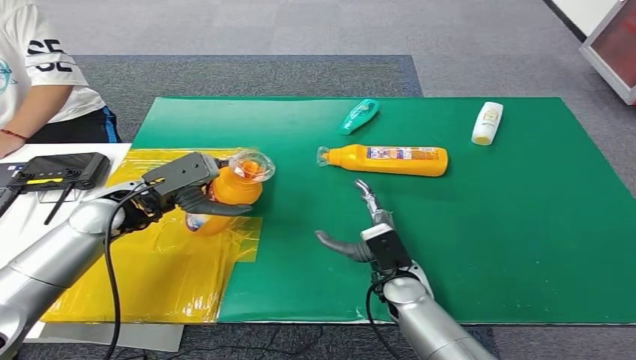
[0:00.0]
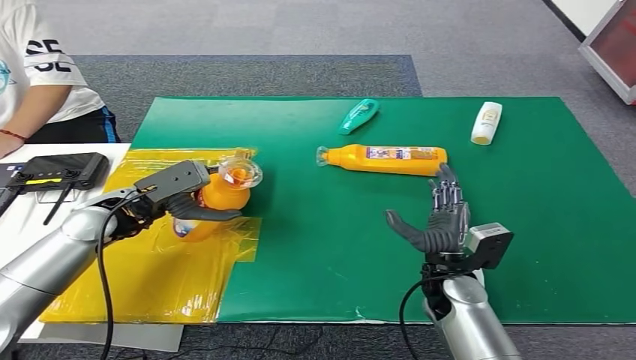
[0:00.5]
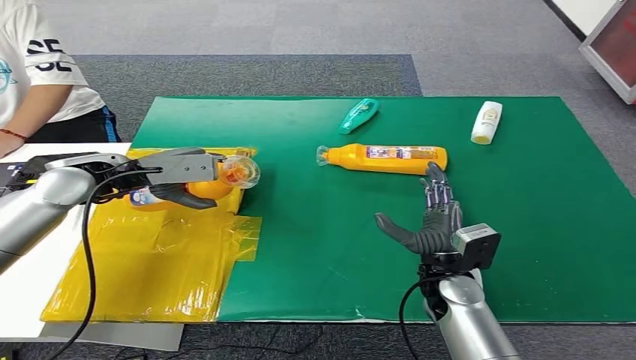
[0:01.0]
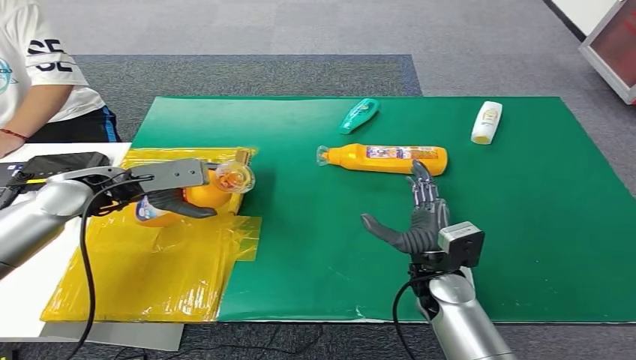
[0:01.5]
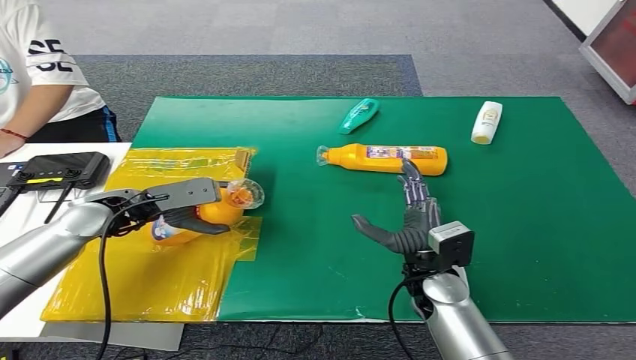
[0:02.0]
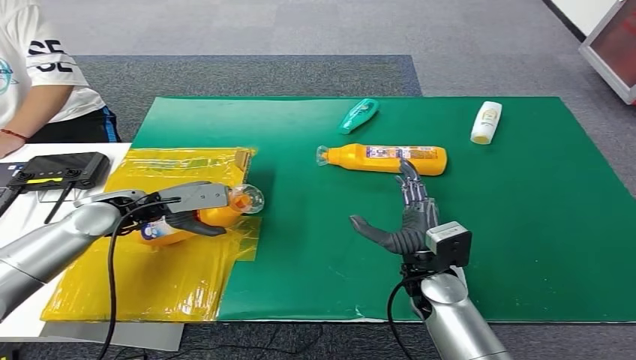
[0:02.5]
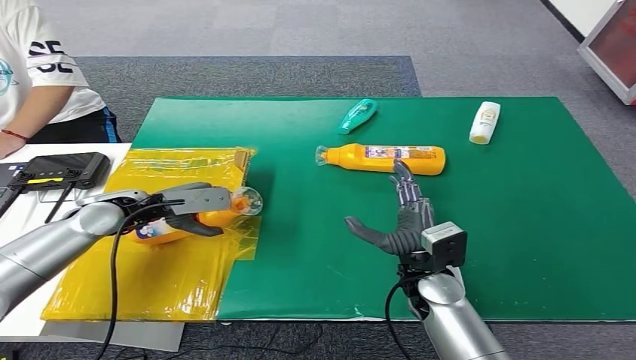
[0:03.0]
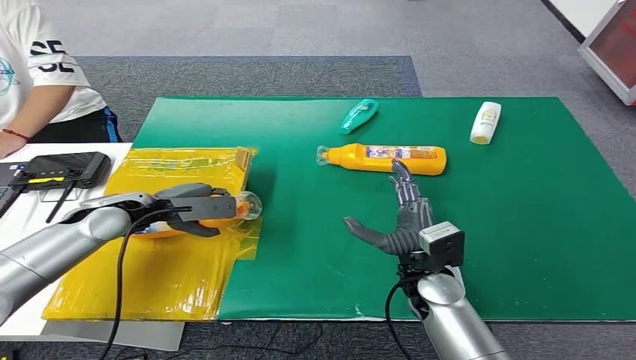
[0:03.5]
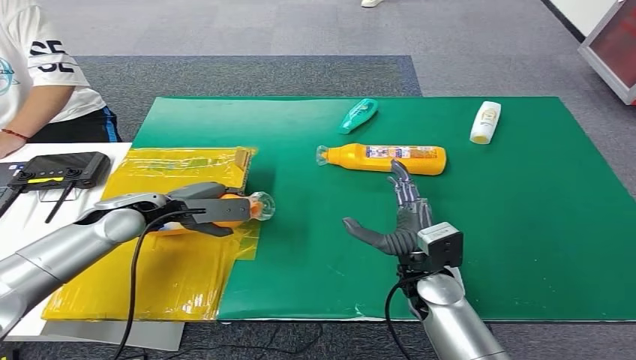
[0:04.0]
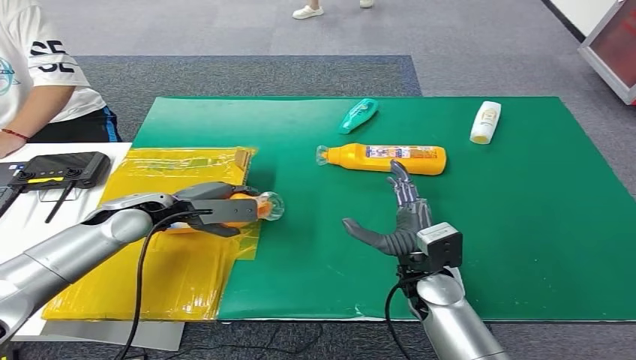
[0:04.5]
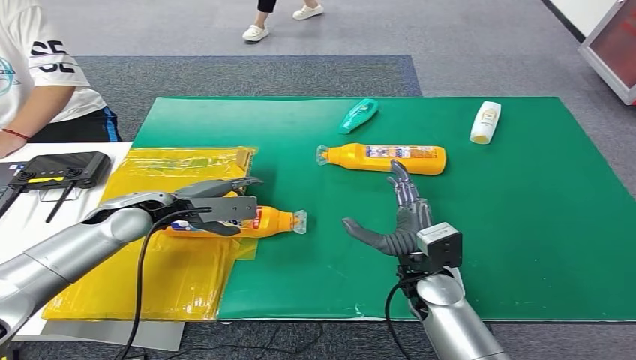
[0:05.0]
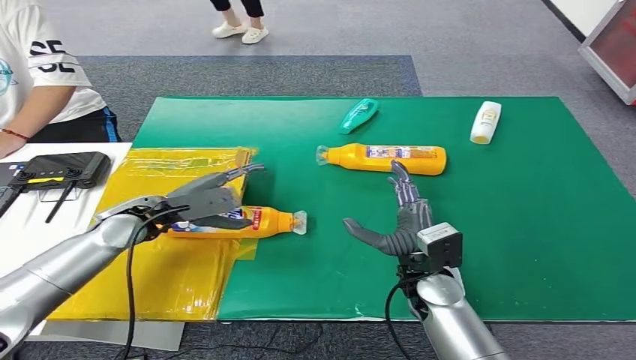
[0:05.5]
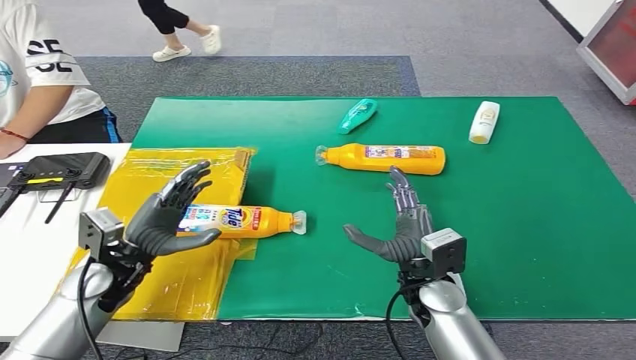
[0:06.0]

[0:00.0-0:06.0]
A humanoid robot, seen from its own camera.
Step, 0:00.0 to 0:06.0: Turn the bottle to the front side.
0:00.0 to 0:02.0: The right hand ends up about 5 cm from where it was.
0:04.0 to 0:06.0: The left hand travels backward by roughly 10 cm.
